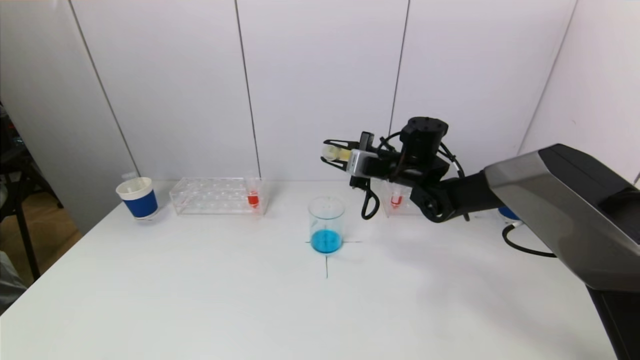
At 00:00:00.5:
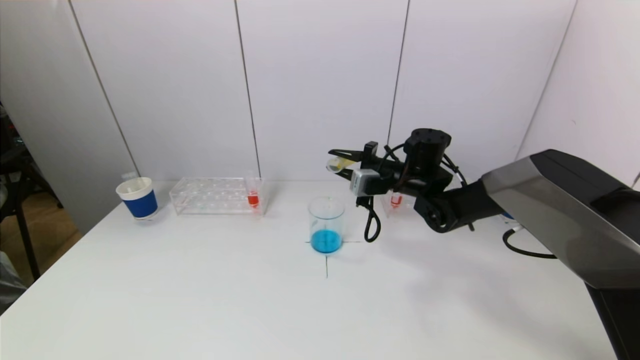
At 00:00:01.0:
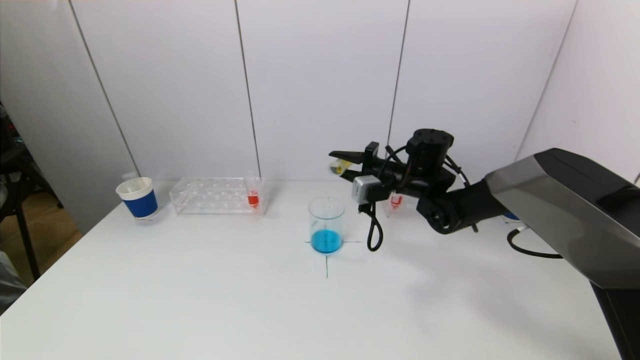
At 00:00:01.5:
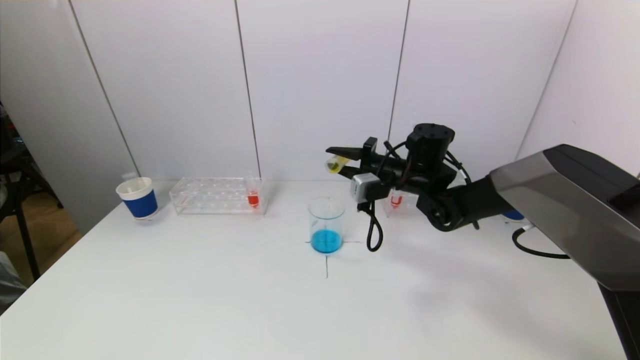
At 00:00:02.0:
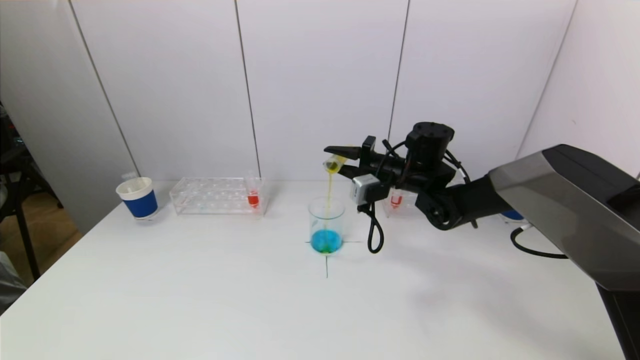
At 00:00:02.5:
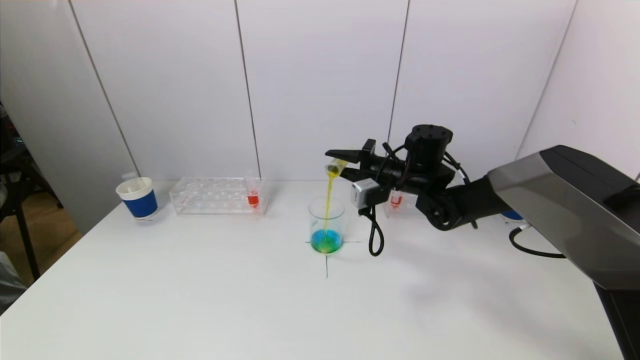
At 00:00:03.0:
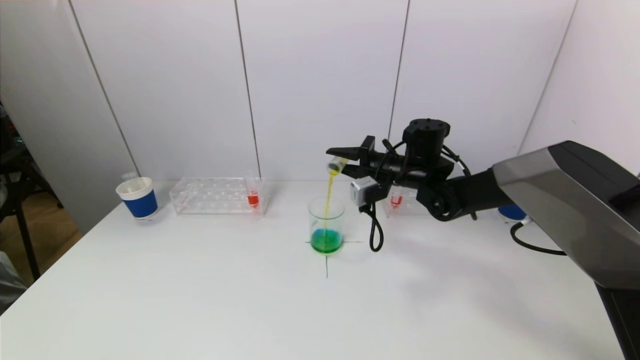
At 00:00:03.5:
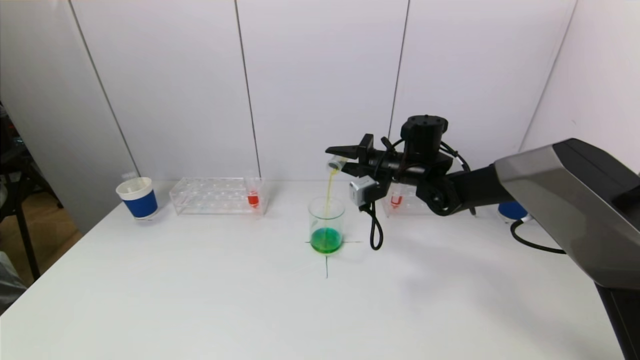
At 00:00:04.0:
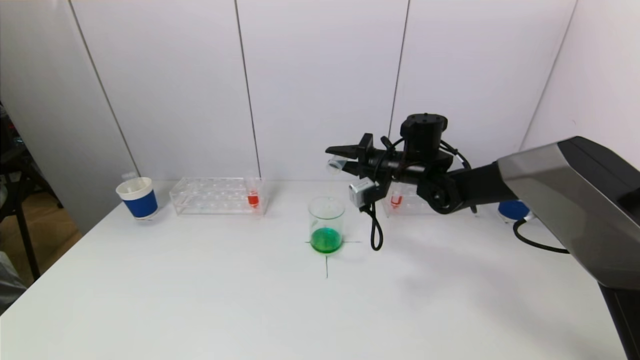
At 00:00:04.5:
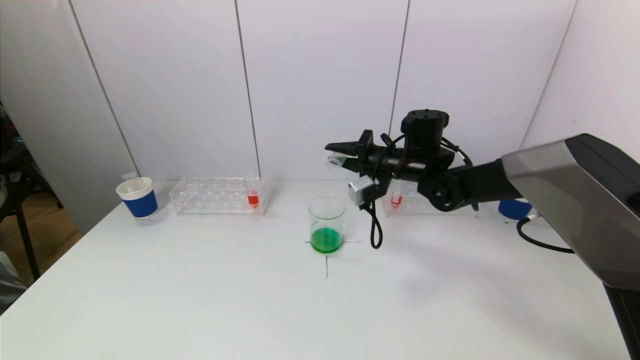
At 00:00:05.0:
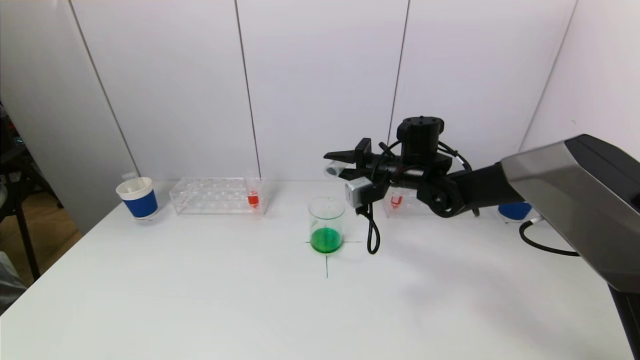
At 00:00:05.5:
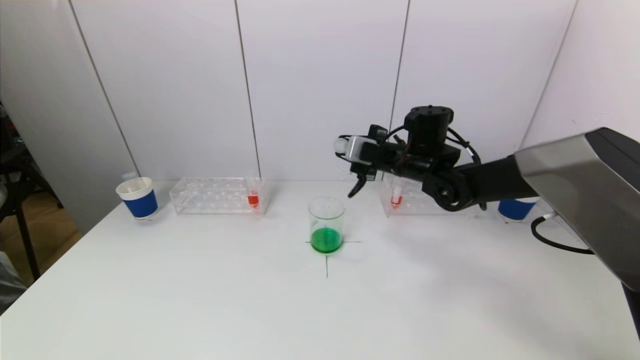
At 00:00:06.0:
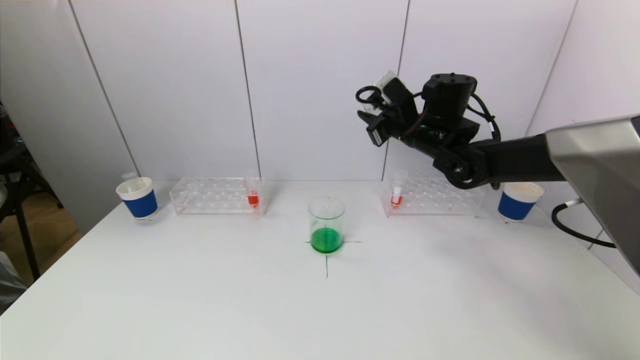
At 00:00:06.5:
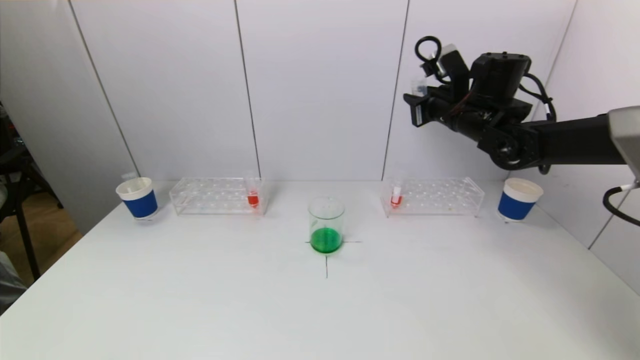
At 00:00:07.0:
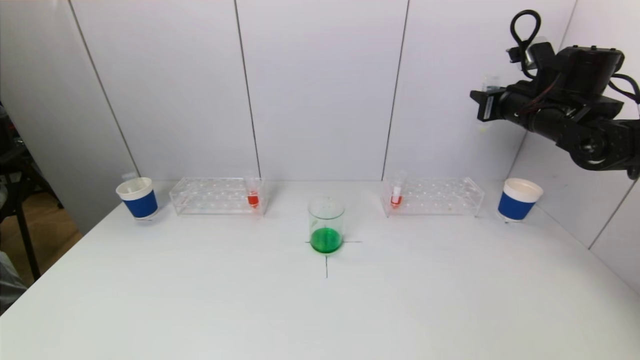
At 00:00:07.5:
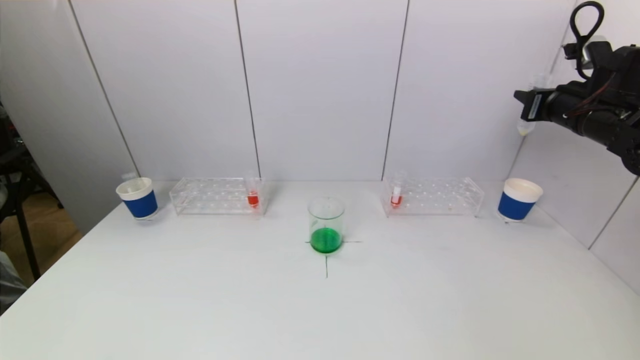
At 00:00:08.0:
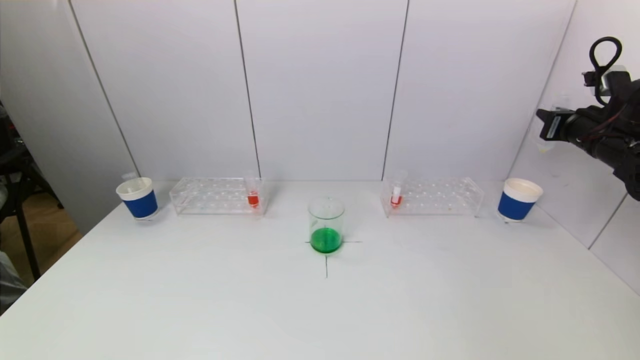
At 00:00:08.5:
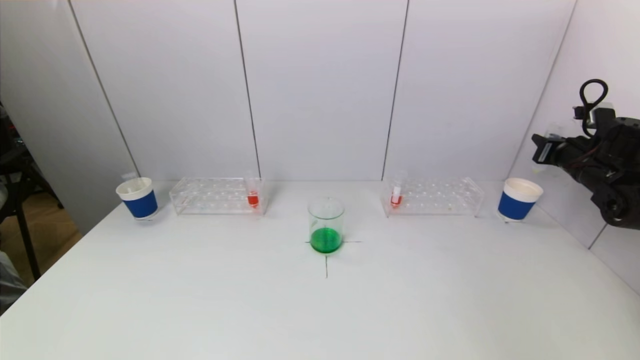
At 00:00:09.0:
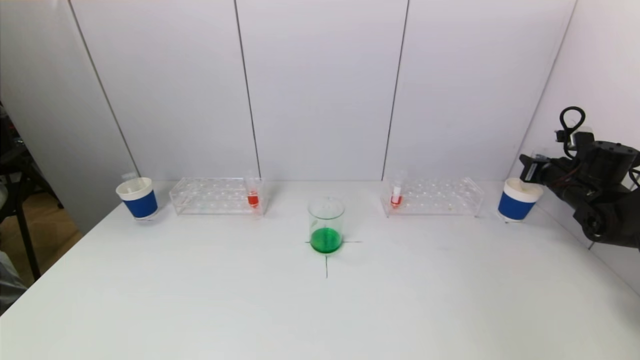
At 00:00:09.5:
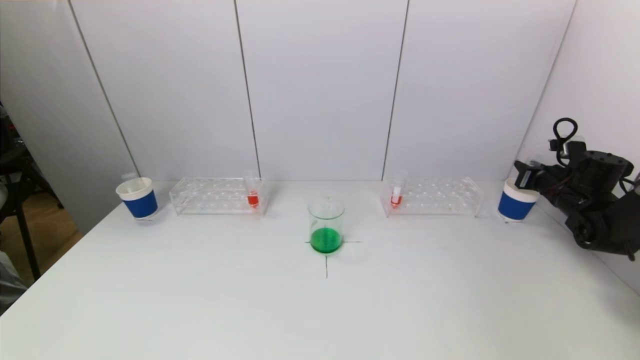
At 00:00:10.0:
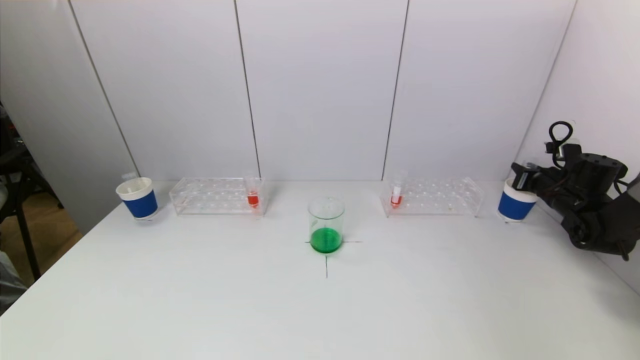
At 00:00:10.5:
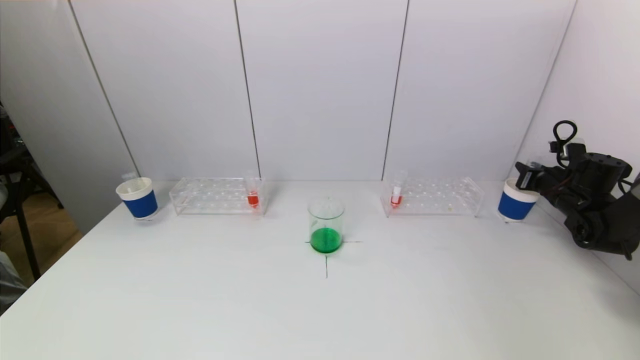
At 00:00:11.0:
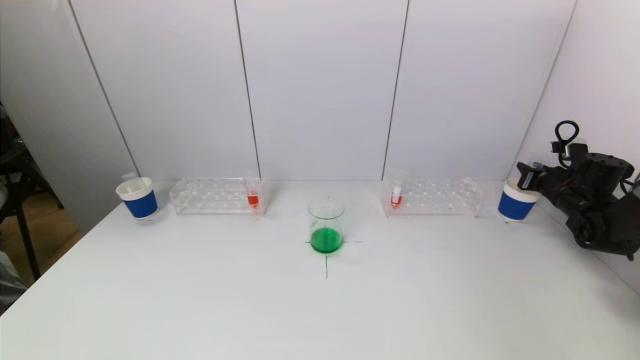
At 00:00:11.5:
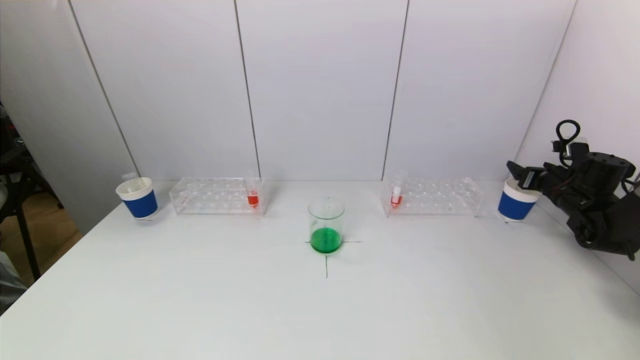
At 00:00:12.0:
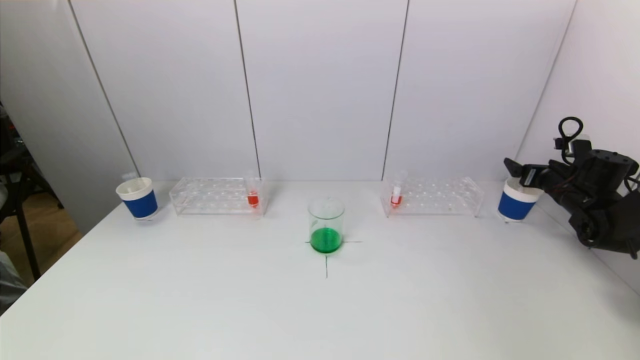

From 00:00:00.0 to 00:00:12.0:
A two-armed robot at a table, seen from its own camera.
Task of the whole recording: pick up a test tube with pigment on left test tube rack and a test tube with pigment on right test tube rack by grippers and pour them into the beaker.
Step, from 00:00:00.0 to 00:00:04.5: Pour the yellow reagent into the graduated cylinder with the right gripper.
Step, from 00:00:05.0 to 00:00:11.5: Place the test tube into the paper cup with the right gripper.
From 00:00:02.0 to 00:00:04.0: There are only small adjustments of the grippers.
From 00:00:04.0 to 00:00:06.0: The right gripper shifts about 5 cm upward.
From 00:00:06.0 to 00:00:08.0: The right gripper goes approximately 25 cm to the right.
From 00:00:08.0 to 00:00:10.0: The right gripper is displaced downward by about 15 cm.
From 00:00:10.0 to 00:00:12.0: The right gripper opens its fingers.

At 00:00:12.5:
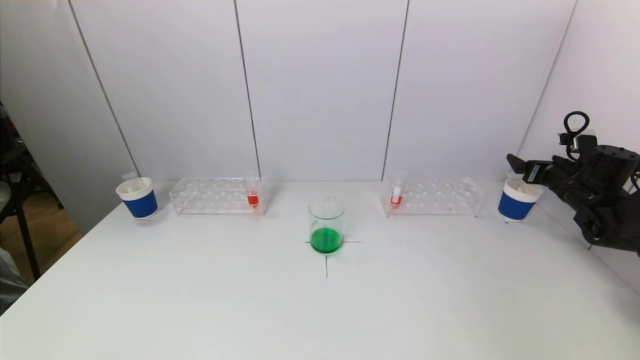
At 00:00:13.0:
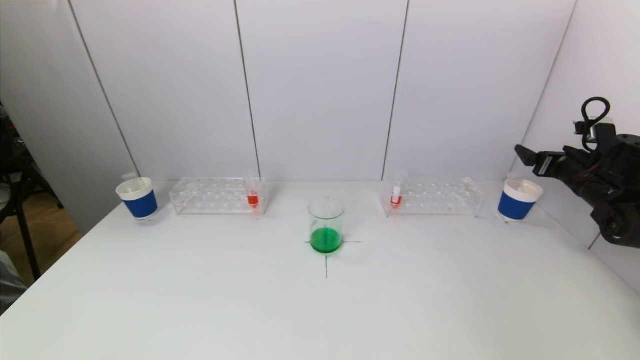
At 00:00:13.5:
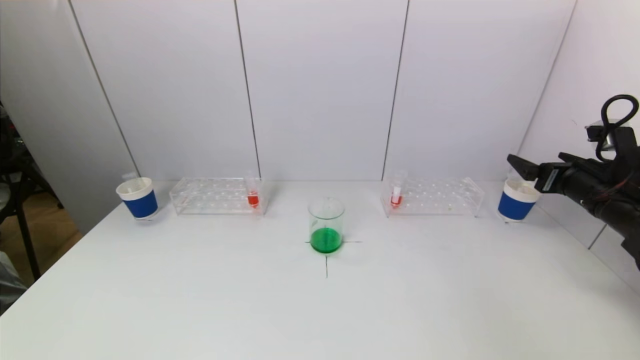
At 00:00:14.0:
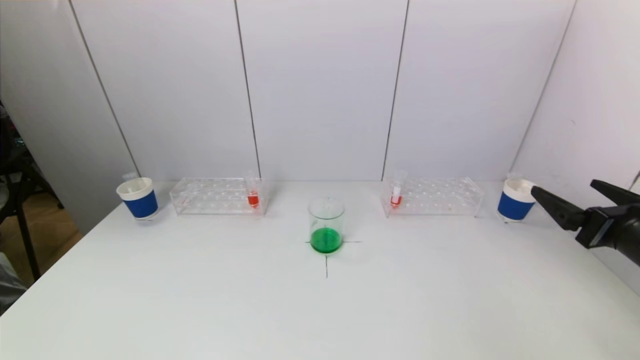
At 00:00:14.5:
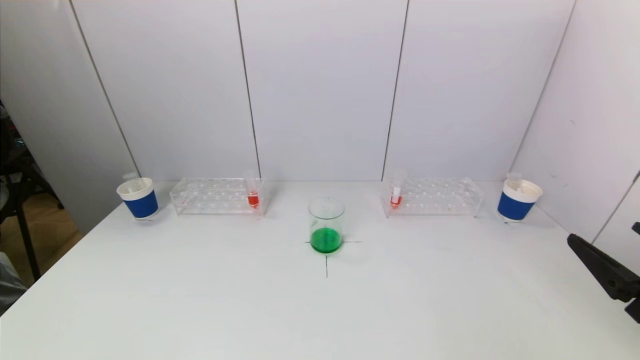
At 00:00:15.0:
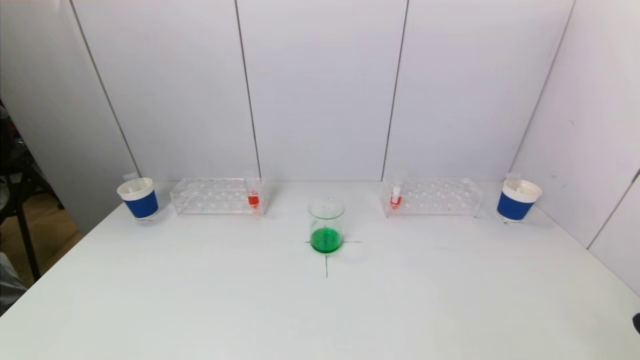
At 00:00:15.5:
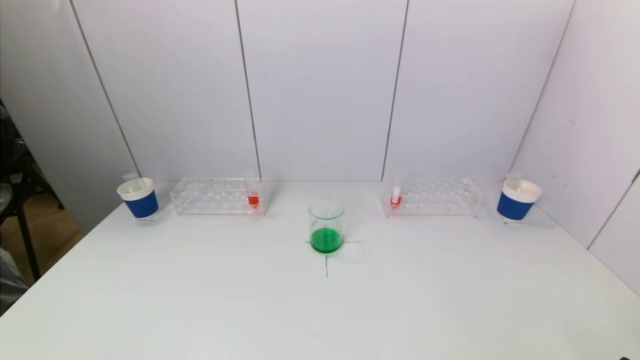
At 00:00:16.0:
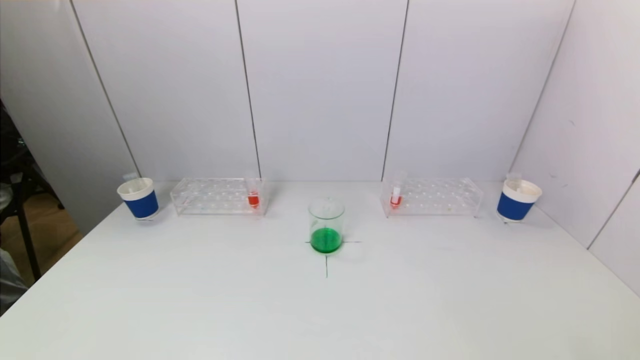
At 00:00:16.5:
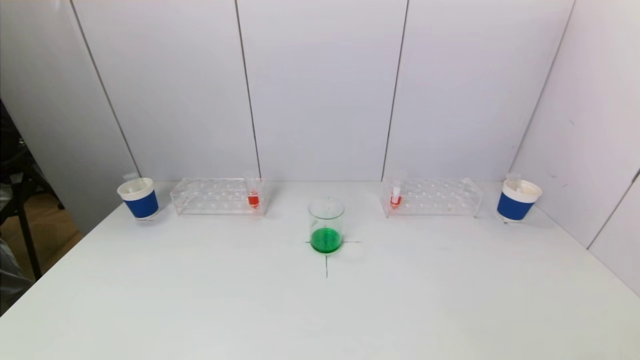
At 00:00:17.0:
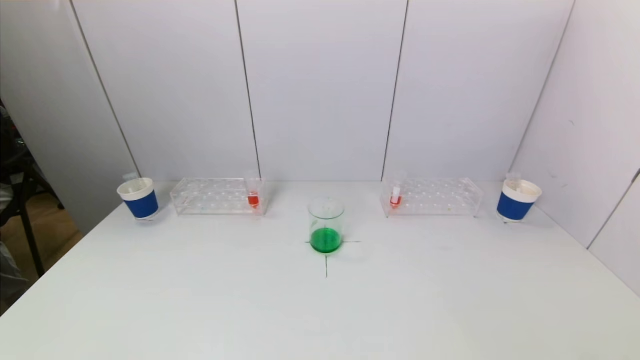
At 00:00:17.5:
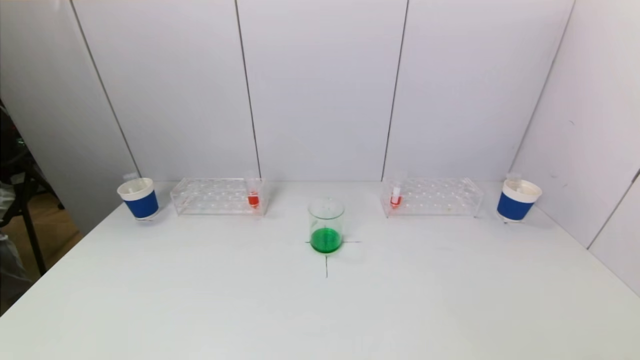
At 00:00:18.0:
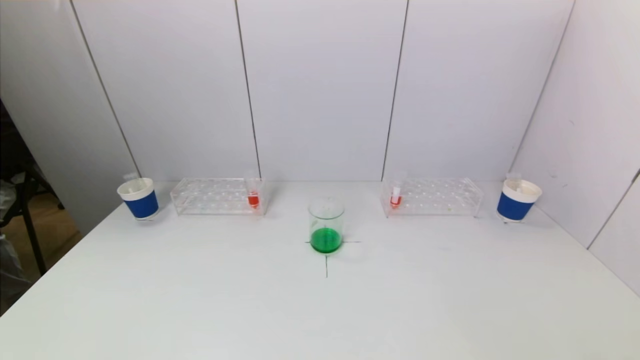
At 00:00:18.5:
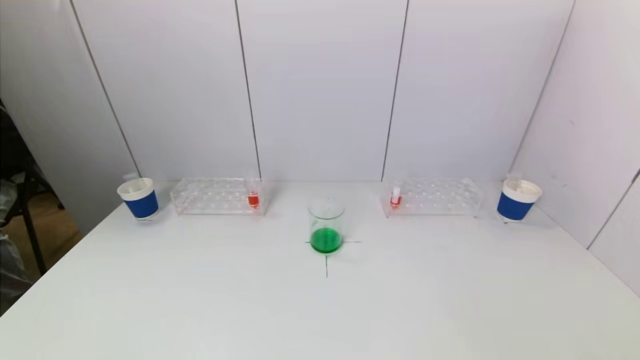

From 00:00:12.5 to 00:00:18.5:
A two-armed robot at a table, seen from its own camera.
Task of the whole recording: pick up a test tube with pigment on left test tube rack and a test tube with pigment on right test tube rack by grippers and pour them into the beaker.
From 00:00:12.5 to 00:00:14.5: The right gripper heads backward, covering roughly 30 cm.
From 00:00:14.5 to 00:00:16.5: The right gripper goes about 15 cm backward and downward.
From 00:00:16.5 to 00:00:18.5: Both grippers stay put.
